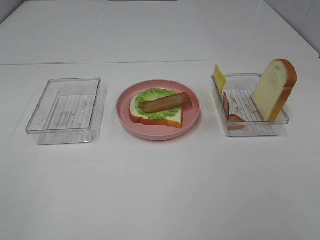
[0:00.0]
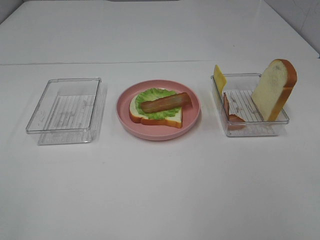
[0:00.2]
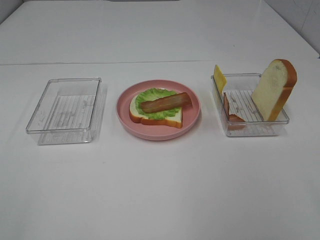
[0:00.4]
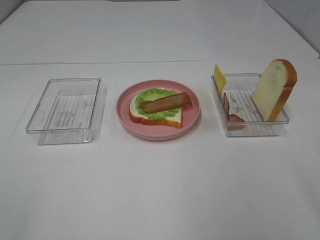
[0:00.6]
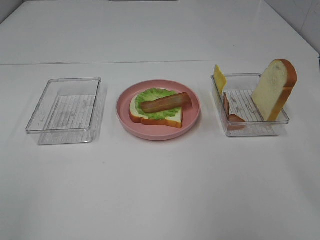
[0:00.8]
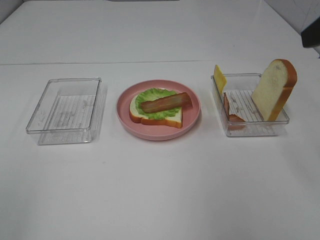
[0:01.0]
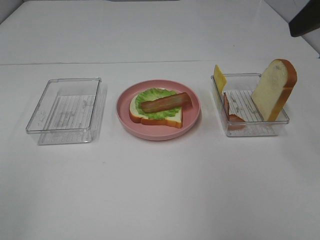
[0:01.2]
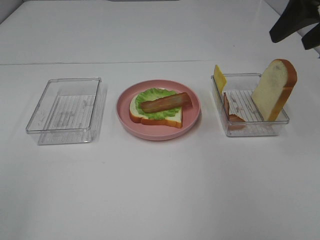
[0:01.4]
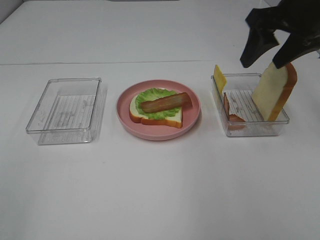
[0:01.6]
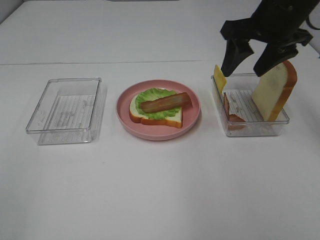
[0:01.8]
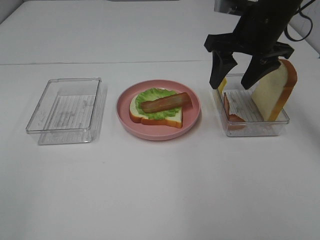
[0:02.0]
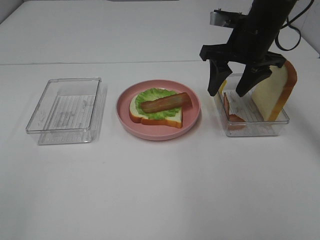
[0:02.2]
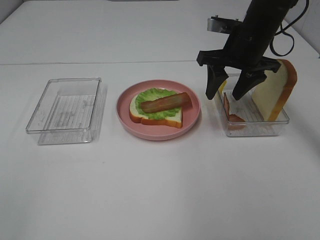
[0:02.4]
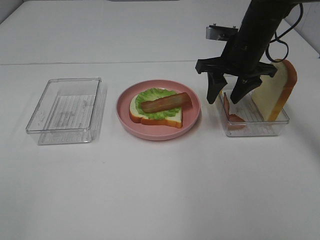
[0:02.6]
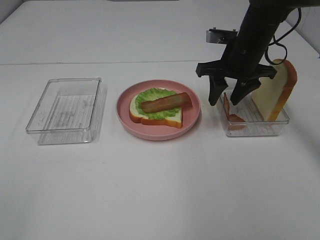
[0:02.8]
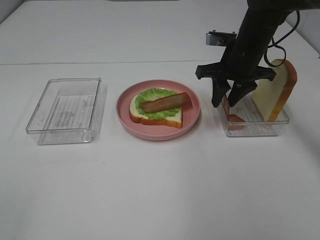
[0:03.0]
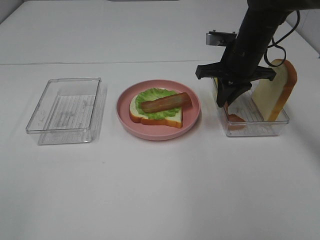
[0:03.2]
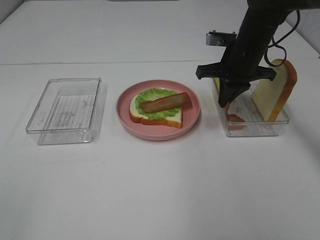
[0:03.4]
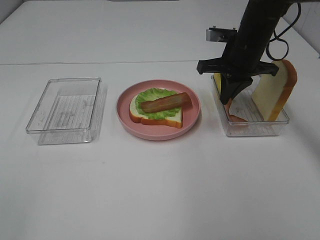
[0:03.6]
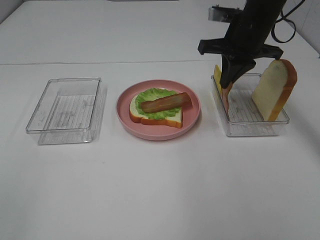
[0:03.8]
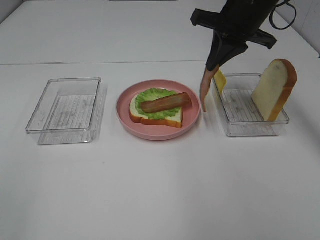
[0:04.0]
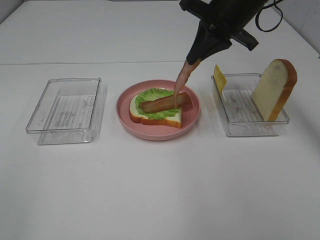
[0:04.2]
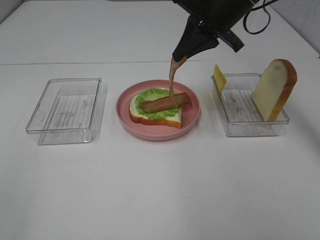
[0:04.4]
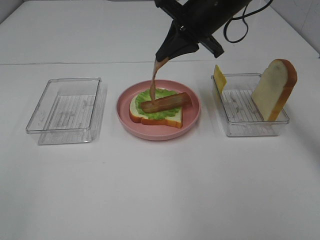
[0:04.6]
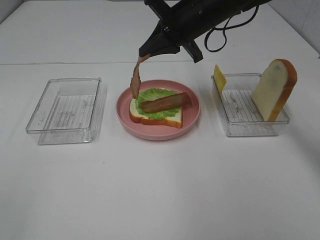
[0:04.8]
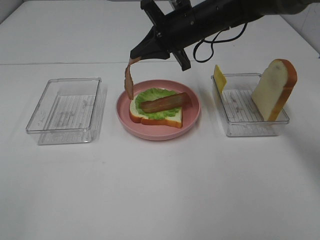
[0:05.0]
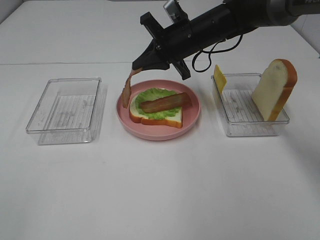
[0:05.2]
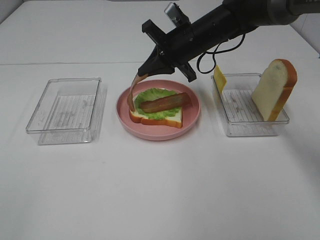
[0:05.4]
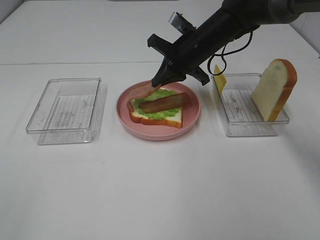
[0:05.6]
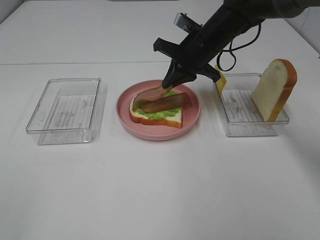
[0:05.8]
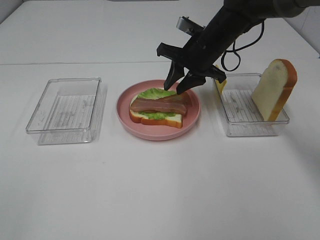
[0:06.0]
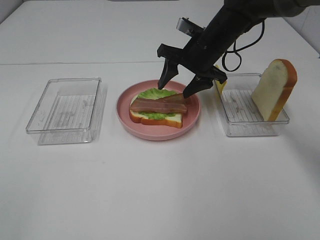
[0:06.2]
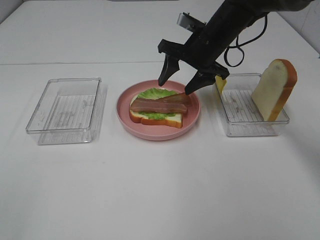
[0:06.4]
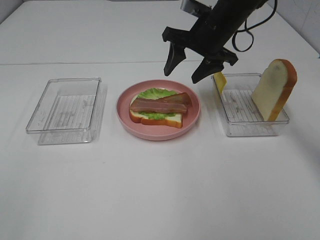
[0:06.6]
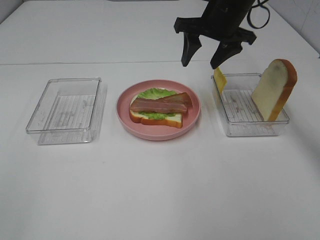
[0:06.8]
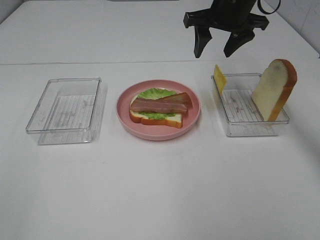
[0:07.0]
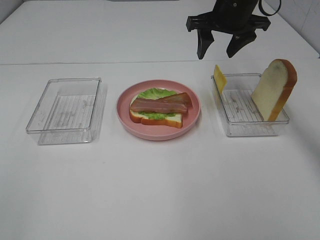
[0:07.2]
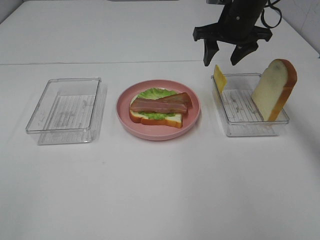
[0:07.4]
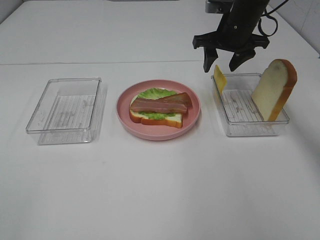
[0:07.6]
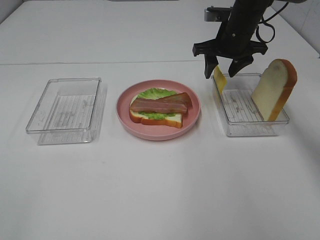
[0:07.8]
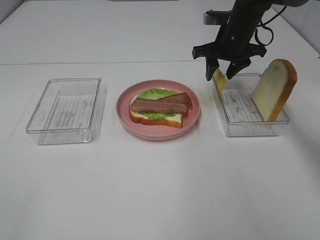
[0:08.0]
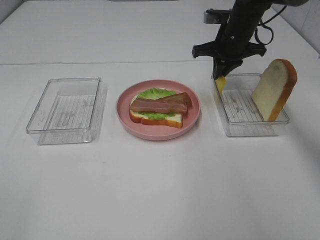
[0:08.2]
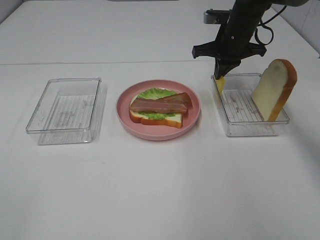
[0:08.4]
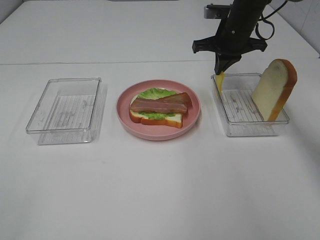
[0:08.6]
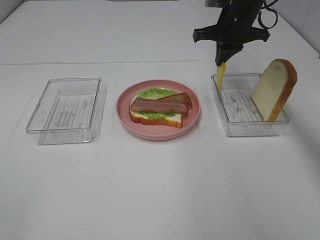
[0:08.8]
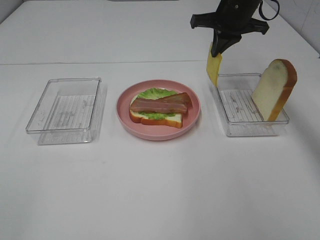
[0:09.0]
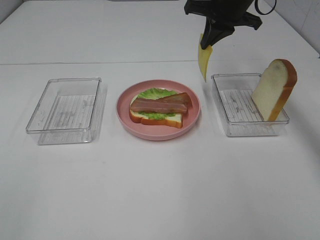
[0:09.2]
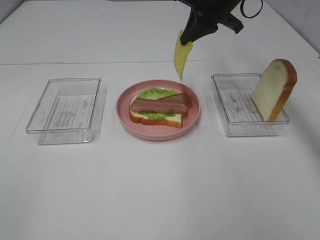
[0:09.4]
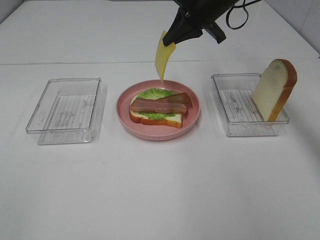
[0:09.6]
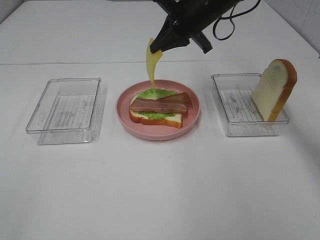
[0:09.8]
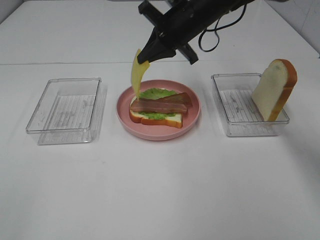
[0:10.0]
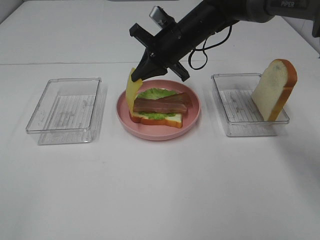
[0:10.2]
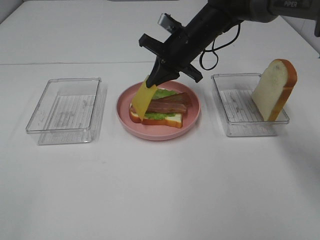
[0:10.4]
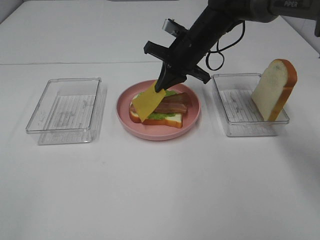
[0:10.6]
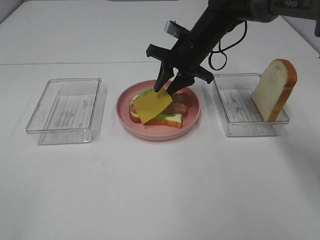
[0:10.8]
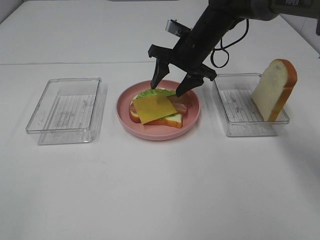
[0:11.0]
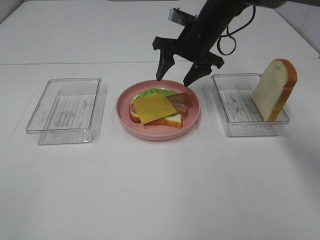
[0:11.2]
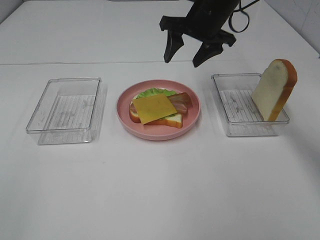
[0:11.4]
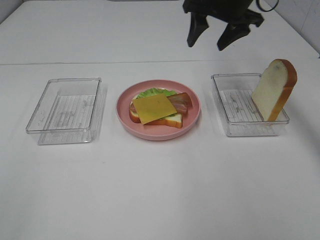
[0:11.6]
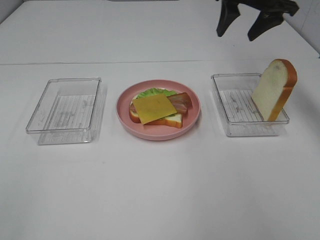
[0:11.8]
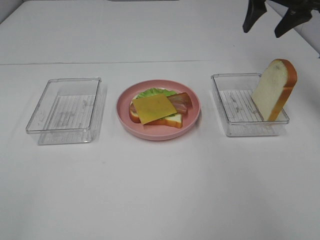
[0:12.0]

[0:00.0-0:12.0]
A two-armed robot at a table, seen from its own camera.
Task of the whole recording: Make sandwiches.
Step, 0:00.0 to 0:03.2: Right hand:grab the bacon.
Step, 0:03.4 to 0:06.4: Right hand:place bacon on bacon.
Step, 0:06.6 to 0:08.2: Right hand:grab the cheese slice.
Step, 0:08.4 to 0:11.0: Right hand:place the cheese slice on top of the bacon.
0:00.0 to 0:01.6: The right gripper shifts some 35 cm forward.
0:01.6 to 0:03.0: The right gripper travels downward and forward by roughly 15 cm, and closes.
0:03.0 to 0:04.4: The right gripper moves upward, approximately 10 cm, and closes its fingers.
0:04.4 to 0:06.0: The right gripper moves downward, approximately 10 cm, and opens.
0:06.0 to 0:07.6: The right gripper heads to the right, covering some 5 cm, and goes upward and returns, roughly 10 cm each way.
0:07.6 to 0:09.0: The right gripper closes up.
0:09.0 to 0:10.4: The right gripper moves to the left and downward, approximately 10 cm.
0:10.4 to 0:12.0: The right gripper goes some 20 cm to the right and upward, and opens.

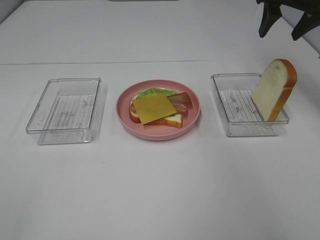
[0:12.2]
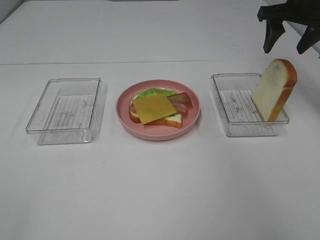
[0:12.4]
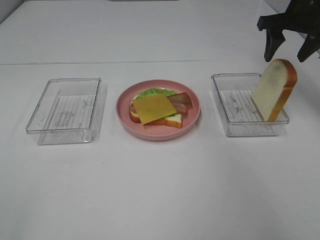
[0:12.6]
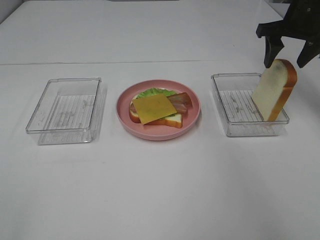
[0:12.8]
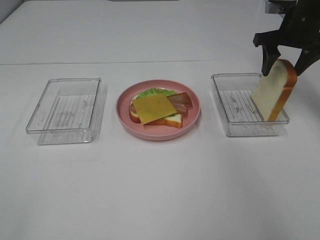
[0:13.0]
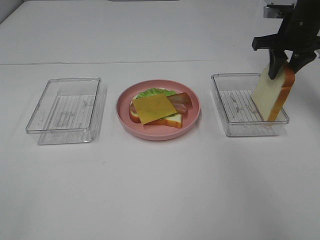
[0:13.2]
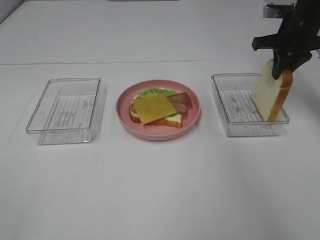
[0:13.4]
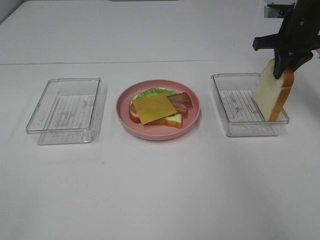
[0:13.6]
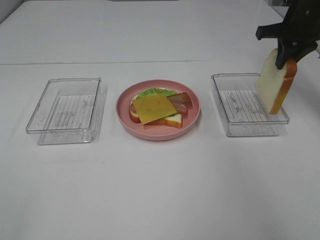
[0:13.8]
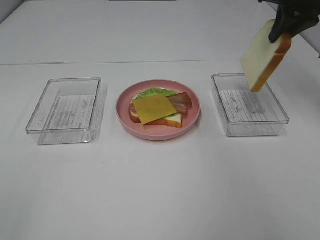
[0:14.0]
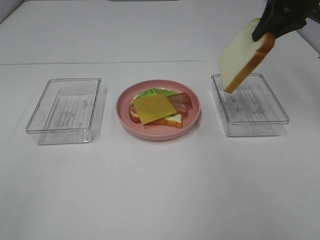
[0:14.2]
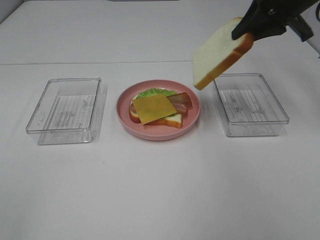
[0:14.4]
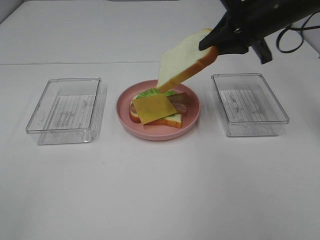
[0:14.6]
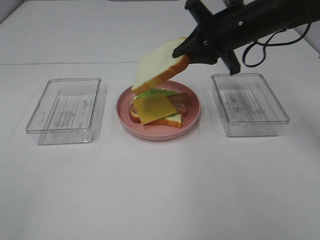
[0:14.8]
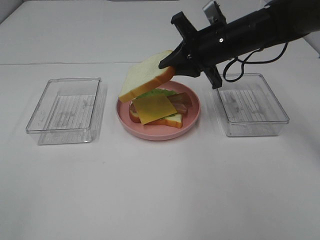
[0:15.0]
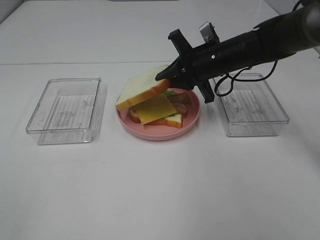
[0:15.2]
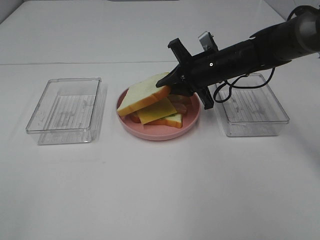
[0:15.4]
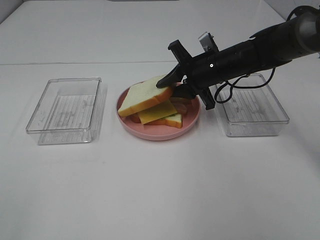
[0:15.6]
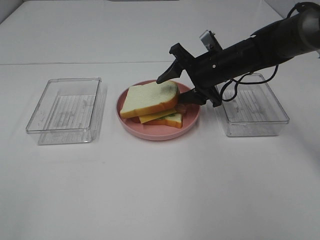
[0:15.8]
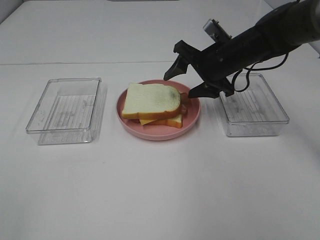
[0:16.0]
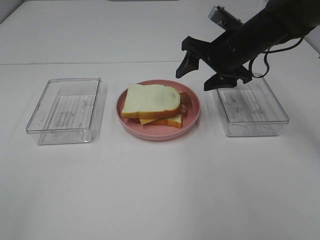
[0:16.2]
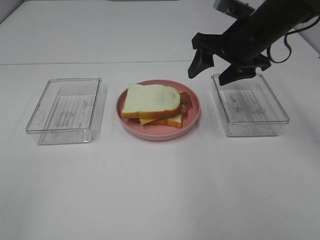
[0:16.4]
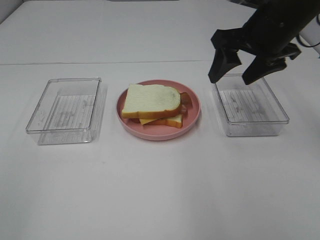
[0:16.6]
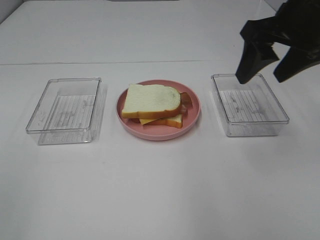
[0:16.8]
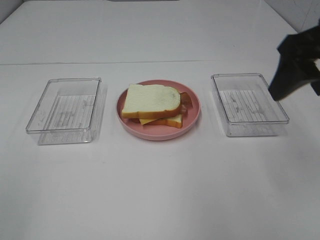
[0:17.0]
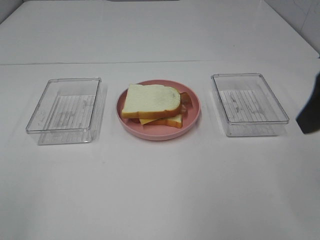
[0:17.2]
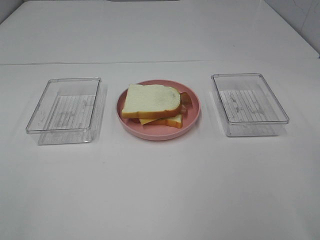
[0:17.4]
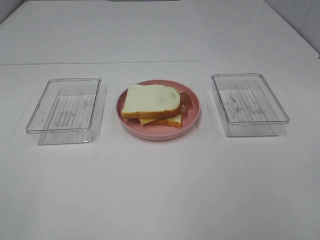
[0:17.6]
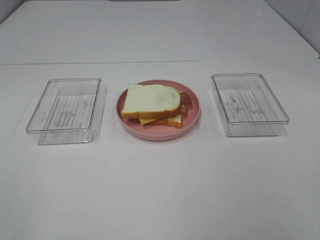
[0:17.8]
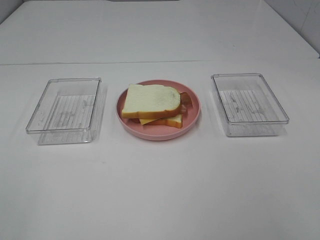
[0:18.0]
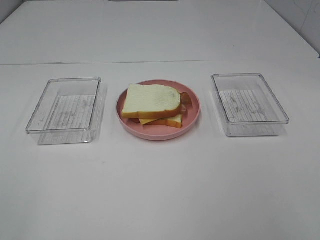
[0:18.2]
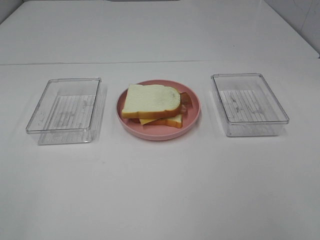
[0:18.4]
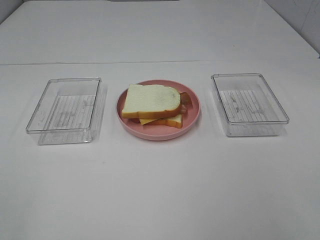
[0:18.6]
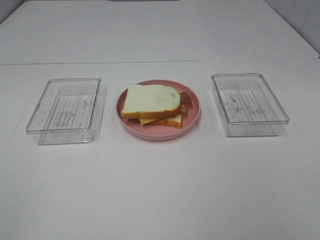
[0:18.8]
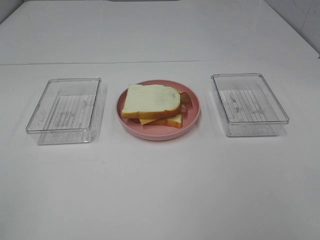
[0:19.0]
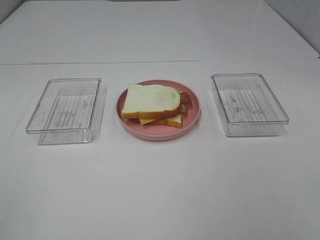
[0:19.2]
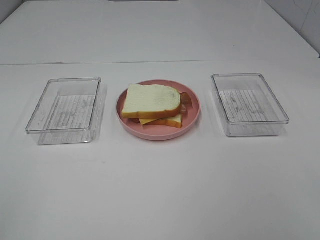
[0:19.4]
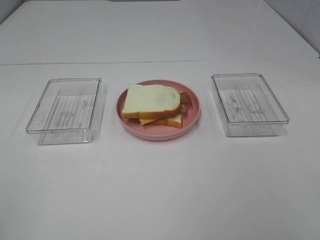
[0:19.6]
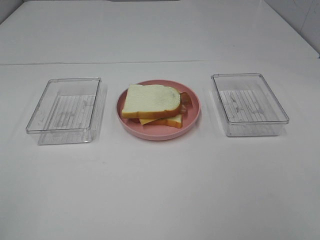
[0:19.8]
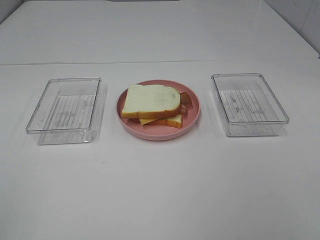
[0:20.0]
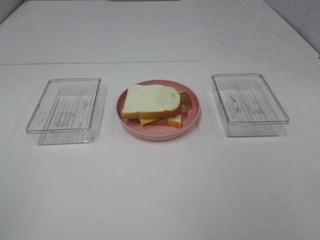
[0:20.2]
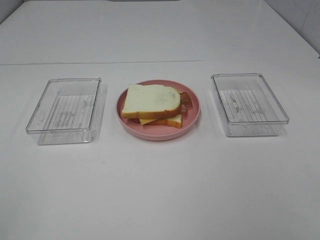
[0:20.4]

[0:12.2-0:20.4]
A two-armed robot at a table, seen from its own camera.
Task of the whole recording: Make sandwiches.
Step, 0:12.2 to 0:13.4: Right hand:grab the bread slice.
Step, 0:13.6 to 0:16.2: Right hand:place the bread slice on the cheese slice.
0:12.2 to 0:13.8: The right gripper closes its fingers.
0:13.8 to 0:15.4: The right gripper shifts some 20 cm to the left and downward.
0:15.4 to 0:17.2: The right gripper heads backward, upward and to the right, covering approximately 30 cm, and opens its fingers.
0:17.2 to 0:18.8: The right gripper goes about 15 cm backward.
